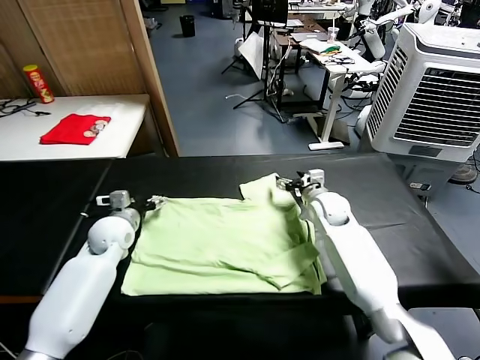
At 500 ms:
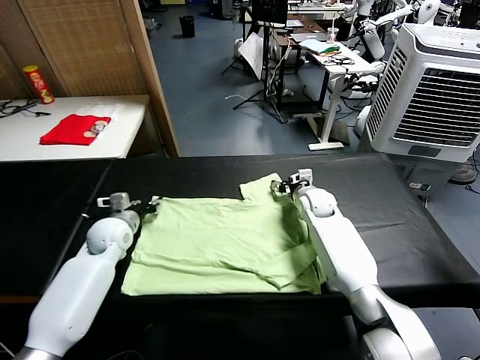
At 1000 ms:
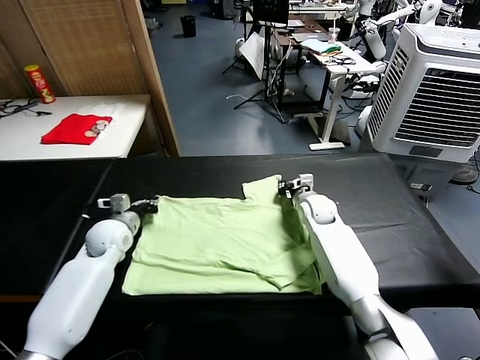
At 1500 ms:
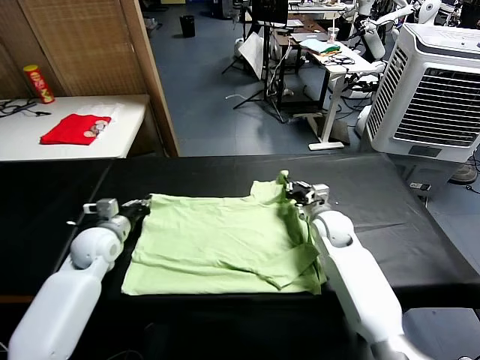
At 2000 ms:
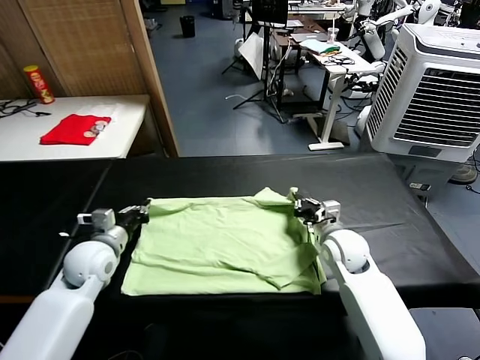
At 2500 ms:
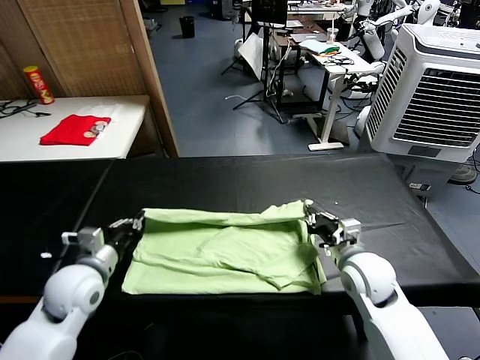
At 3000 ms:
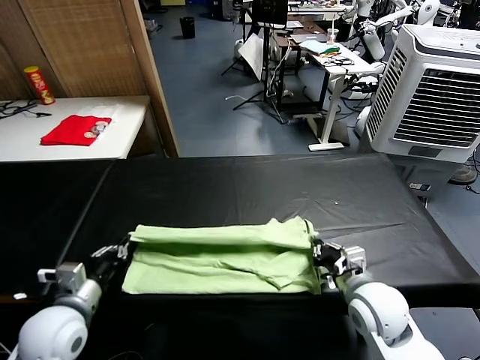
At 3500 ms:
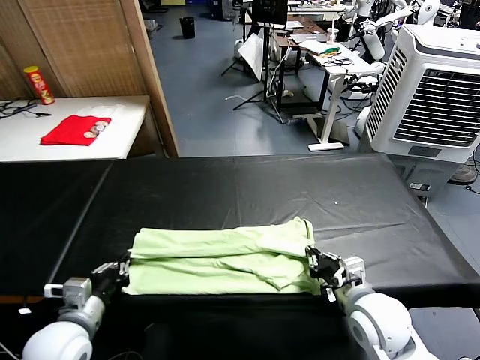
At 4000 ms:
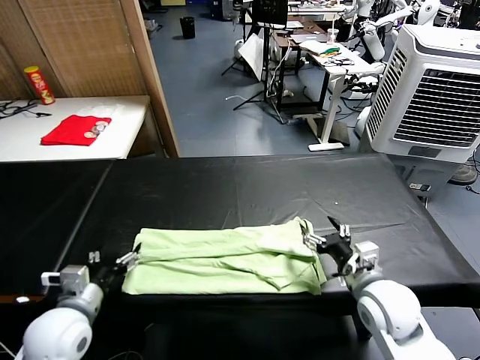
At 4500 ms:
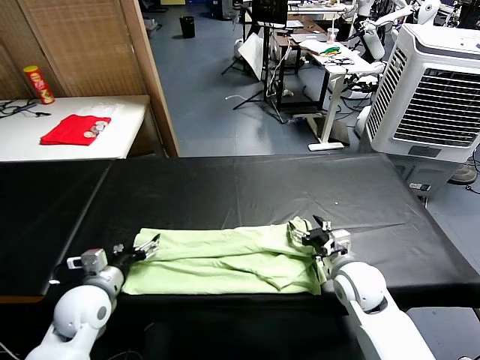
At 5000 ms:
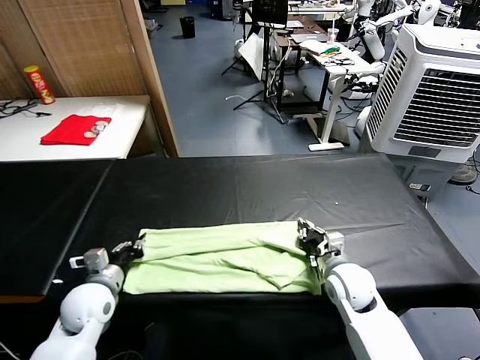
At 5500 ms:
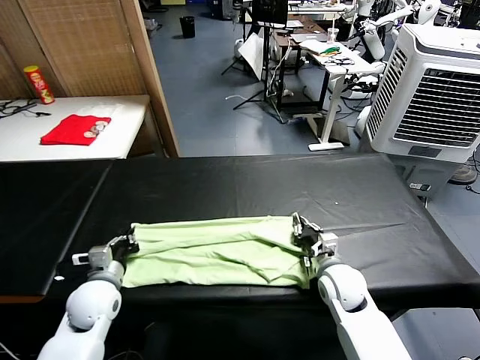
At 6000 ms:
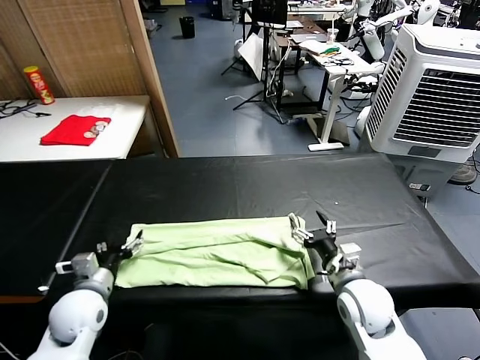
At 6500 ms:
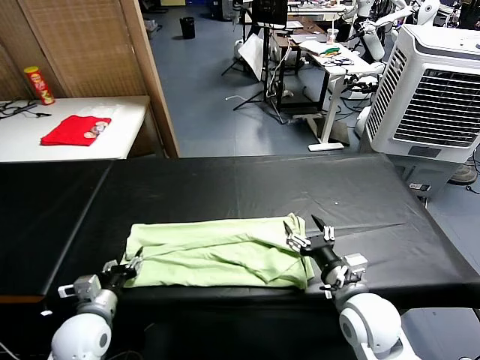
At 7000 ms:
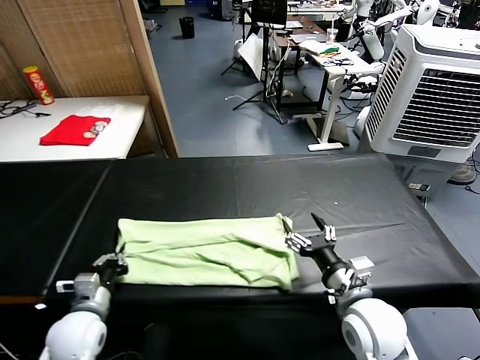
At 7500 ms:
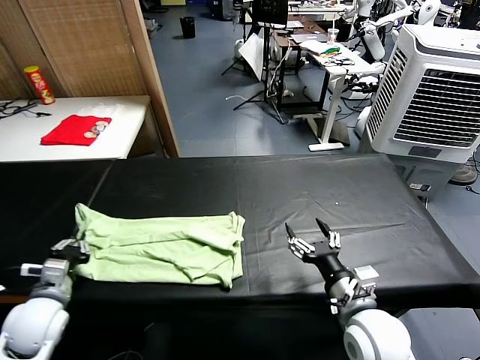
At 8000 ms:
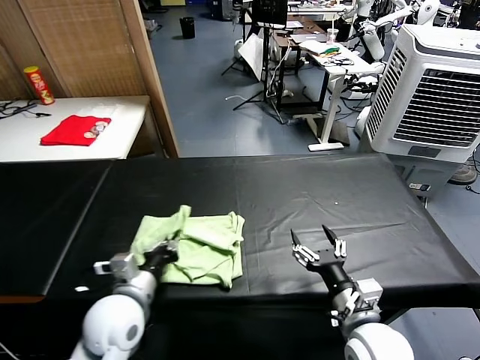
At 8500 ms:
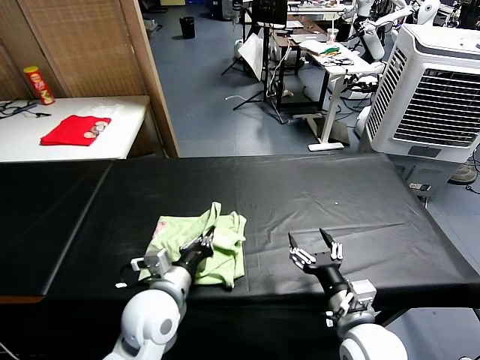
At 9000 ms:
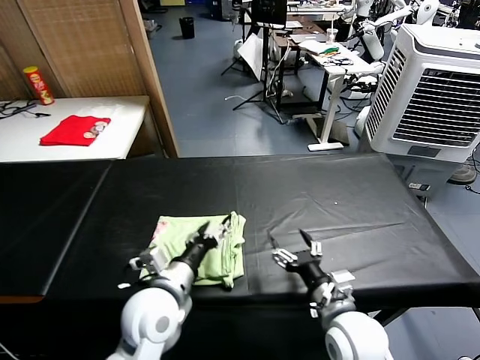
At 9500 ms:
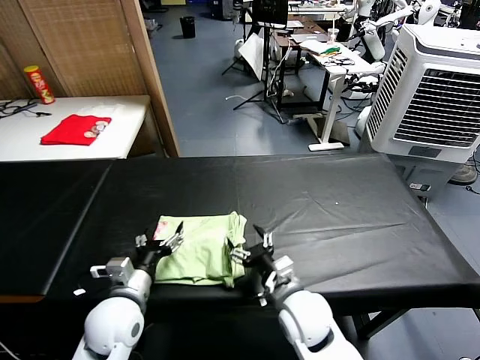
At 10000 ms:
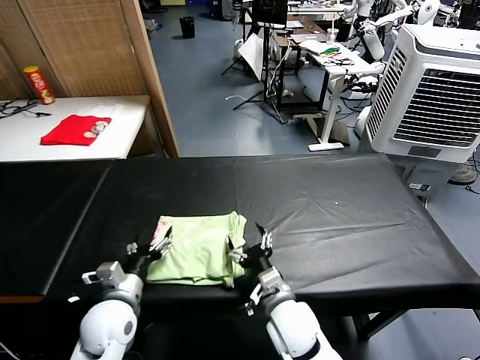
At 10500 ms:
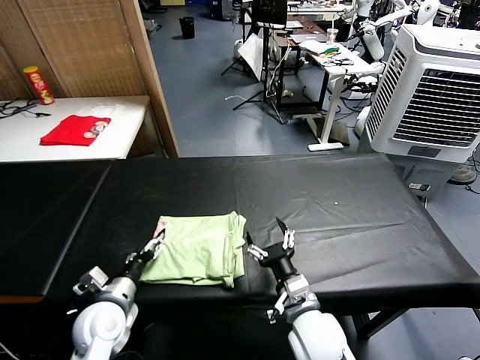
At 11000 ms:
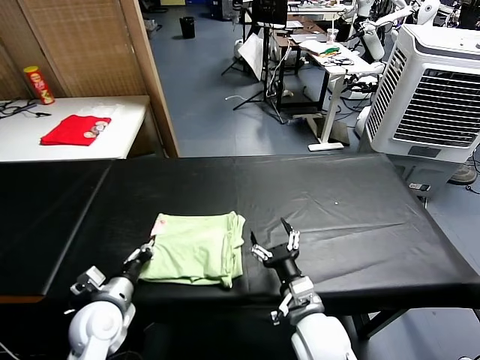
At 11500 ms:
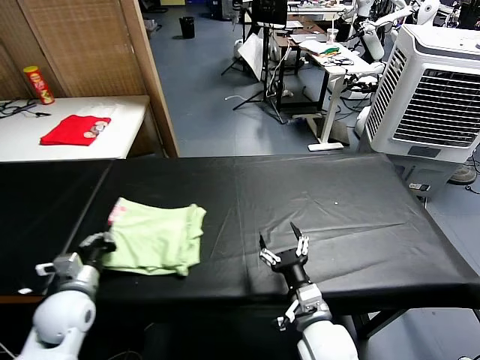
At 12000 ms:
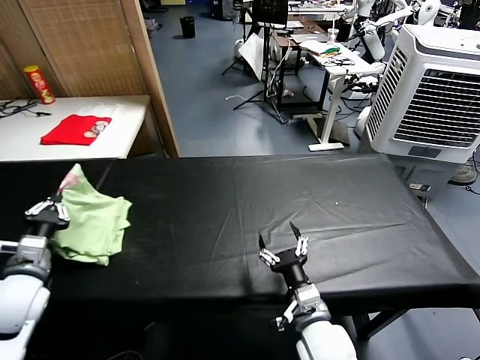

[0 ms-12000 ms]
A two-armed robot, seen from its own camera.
Task of the whole recording: fold and organize the clothes.
Step, 1000 ms to 3500 ms: use both grippers to drag the upper edge of the fabric backward and fold it over the lower edge.
Step, 4000 ms to 6500 ms: use the left gripper to clamp the left edge of the fabric.
Step, 7000 ms to 8500 ms: use the left gripper to drag the left edge of the fabric to the left and folds it over the right edge.
0 ms to 2000 ms: The right gripper heads backward, covering about 15 cm, and closes up. The left gripper shifts about 10 cm backward, and closes its fingers.
2000 ms to 4000 ms: Both grippers move backward, about 10 cm. The left gripper opens its fingers. Meanwhile the right gripper opens its fingers.
4000 ms to 6000 ms: The left gripper travels downward by roughly 5 cm, and closes and opens again. The right gripper closes and opens again.
6000 ms to 8000 ms: The right gripper shifts some 10 cm backward; the left gripper shifts roughly 10 cm to the right and upward, and closes its fingers.
8000 ms to 10000 ms: The left gripper goes approximately 5 cm downward, and opens; the right gripper goes some 15 cm to the left, downward and forward.
10000 ms to 12000 ms: The right gripper ends up approximately 5 cm from where it was. Meanwhile the left gripper travels to the left and upward by roughly 15 cm, and closes its fingers.

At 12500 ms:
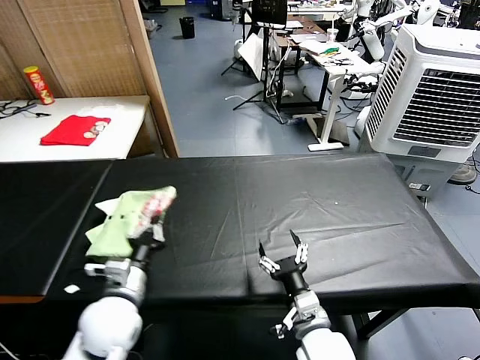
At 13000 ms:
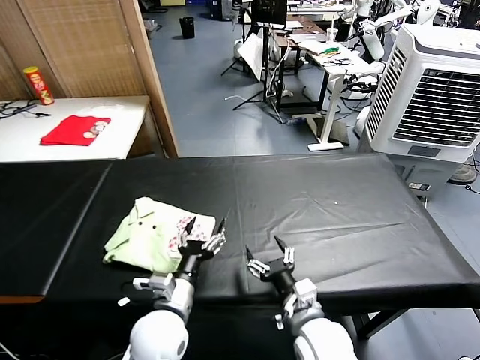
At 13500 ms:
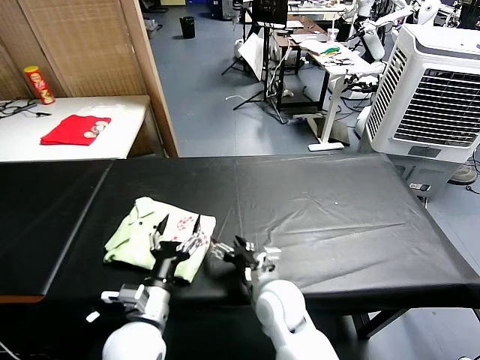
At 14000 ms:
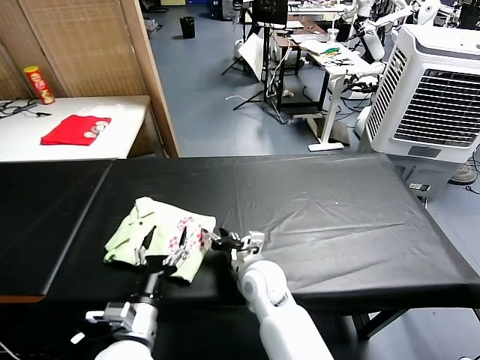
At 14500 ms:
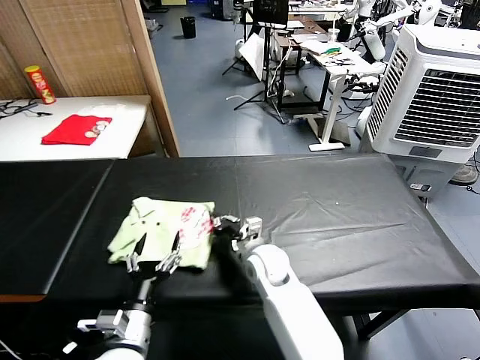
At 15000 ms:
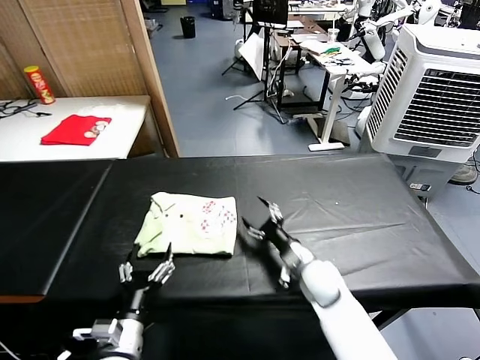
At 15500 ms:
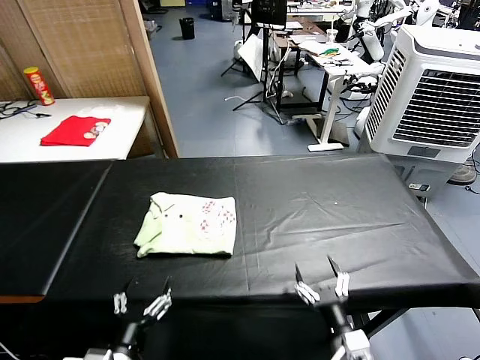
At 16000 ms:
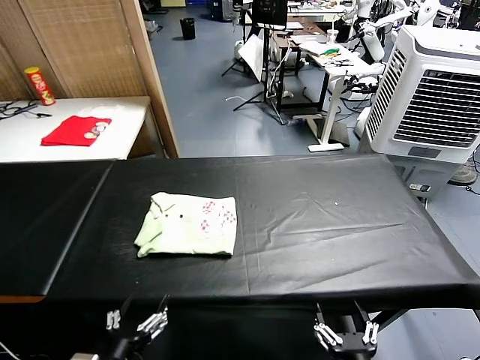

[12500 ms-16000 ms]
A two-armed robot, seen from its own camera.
Task of the whole recording: fold and organize the clothes.
Step, 13000 ms to 14500 ms: Drag the clothes to the center of the table.
12500 ms to 14500 ms: The right gripper is displaced forward and to the left by roughly 20 cm, and closes. Meanwhile the left gripper is displaced backward by about 10 cm, and opens its fingers.
14500 ms to 16000 ms: The right gripper moves backward and to the right, approximately 35 cm, and opens up. Meanwhile the left gripper is displaced backward by about 10 cm.
